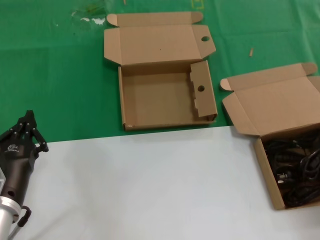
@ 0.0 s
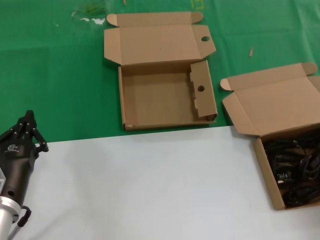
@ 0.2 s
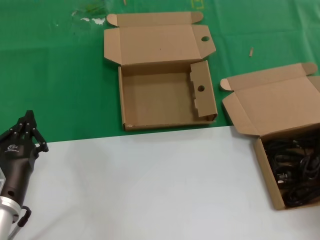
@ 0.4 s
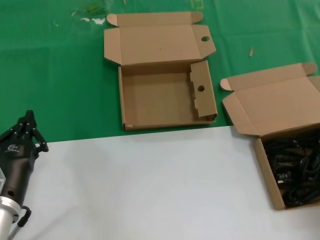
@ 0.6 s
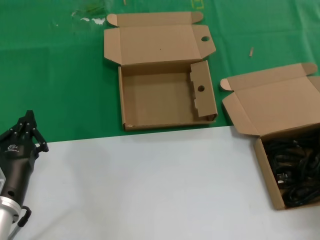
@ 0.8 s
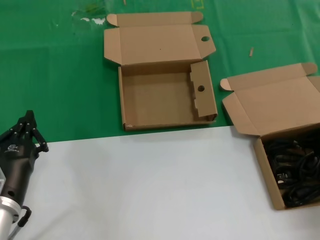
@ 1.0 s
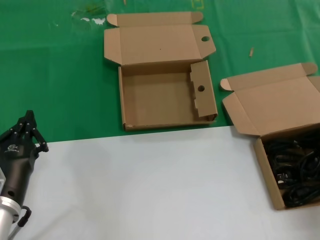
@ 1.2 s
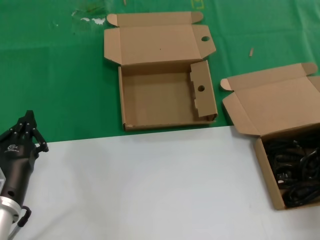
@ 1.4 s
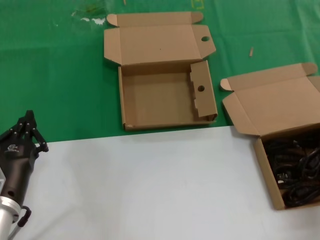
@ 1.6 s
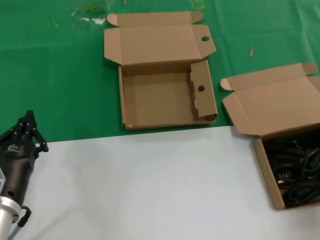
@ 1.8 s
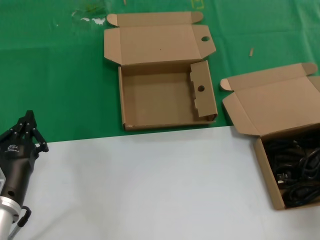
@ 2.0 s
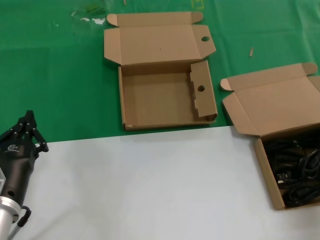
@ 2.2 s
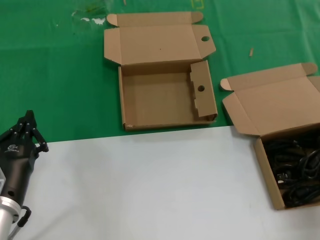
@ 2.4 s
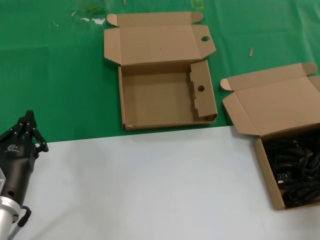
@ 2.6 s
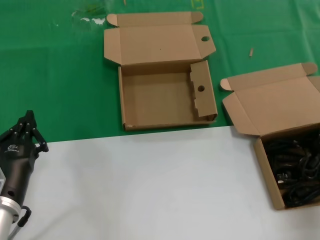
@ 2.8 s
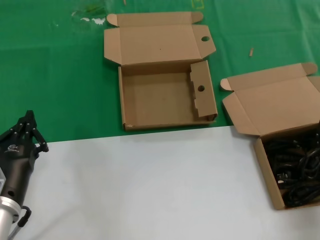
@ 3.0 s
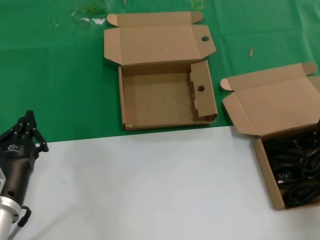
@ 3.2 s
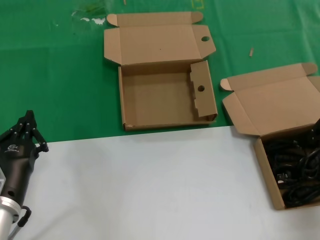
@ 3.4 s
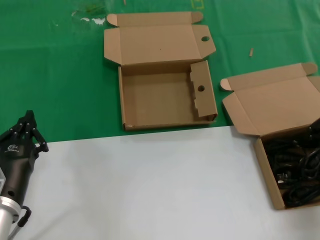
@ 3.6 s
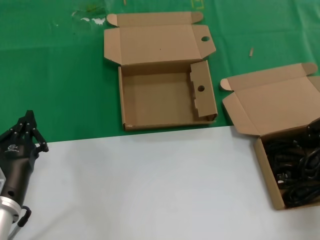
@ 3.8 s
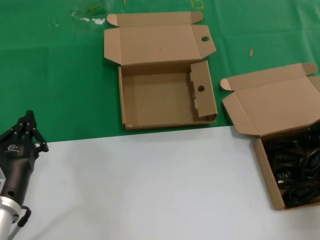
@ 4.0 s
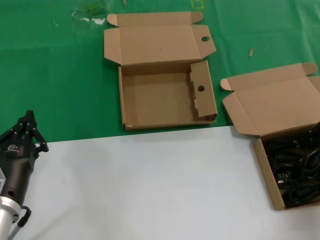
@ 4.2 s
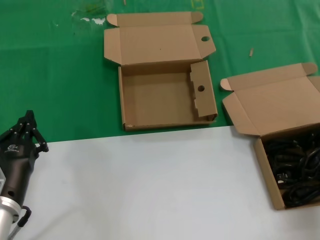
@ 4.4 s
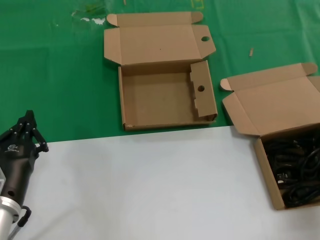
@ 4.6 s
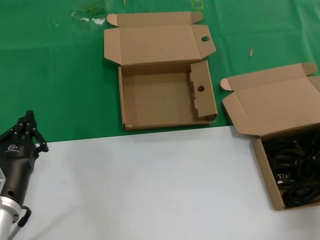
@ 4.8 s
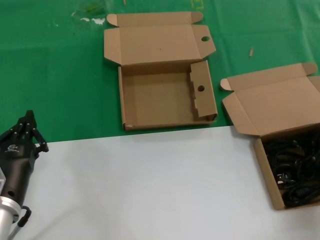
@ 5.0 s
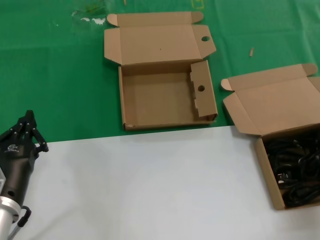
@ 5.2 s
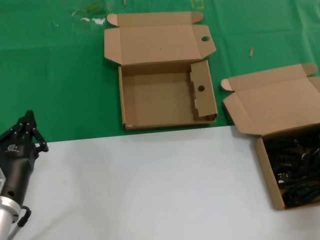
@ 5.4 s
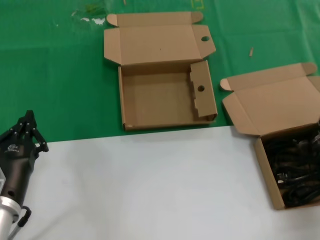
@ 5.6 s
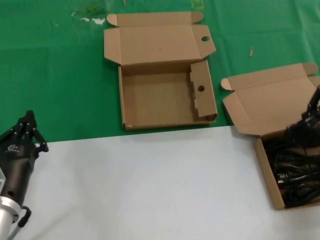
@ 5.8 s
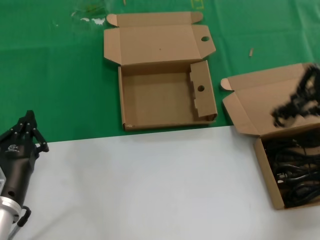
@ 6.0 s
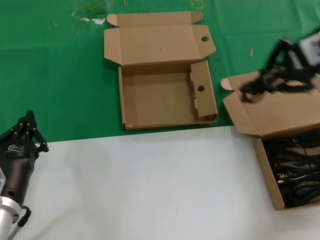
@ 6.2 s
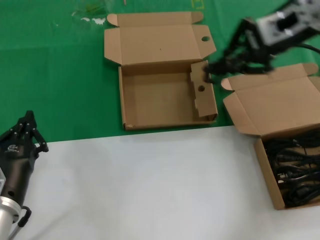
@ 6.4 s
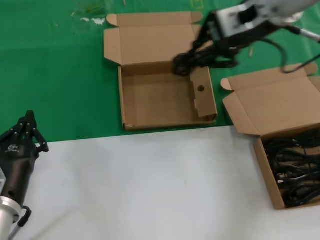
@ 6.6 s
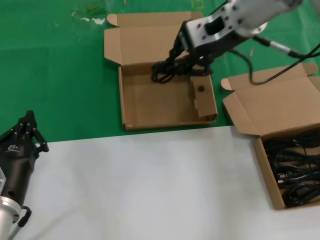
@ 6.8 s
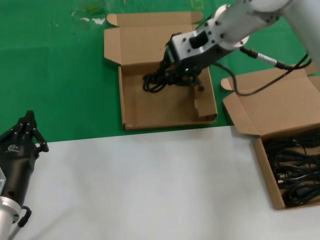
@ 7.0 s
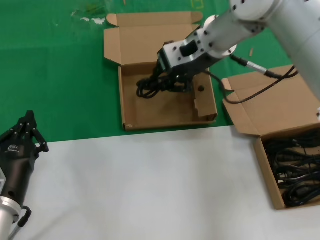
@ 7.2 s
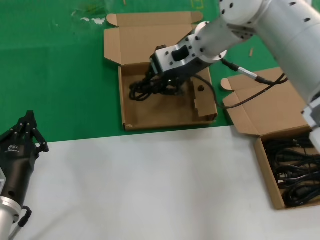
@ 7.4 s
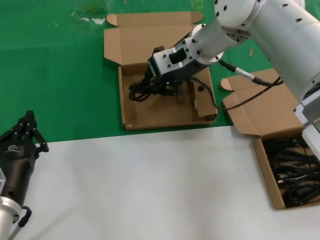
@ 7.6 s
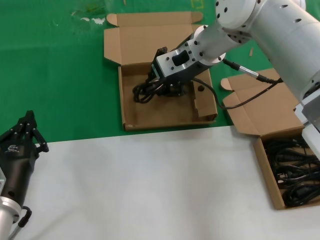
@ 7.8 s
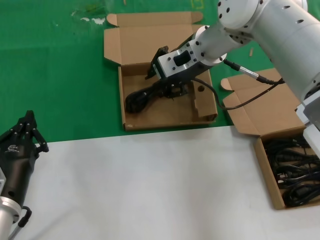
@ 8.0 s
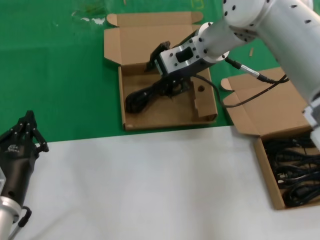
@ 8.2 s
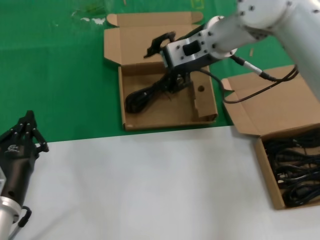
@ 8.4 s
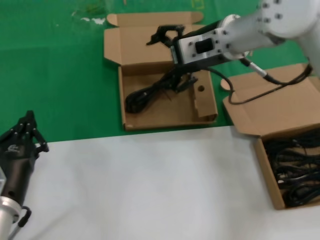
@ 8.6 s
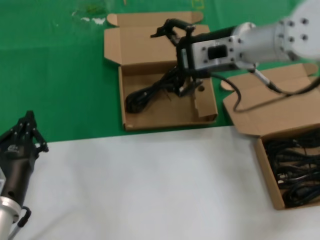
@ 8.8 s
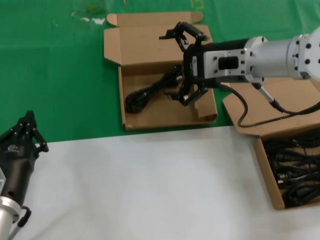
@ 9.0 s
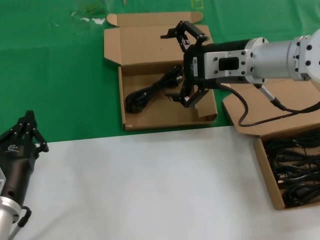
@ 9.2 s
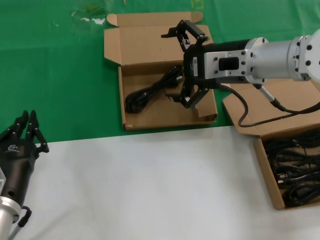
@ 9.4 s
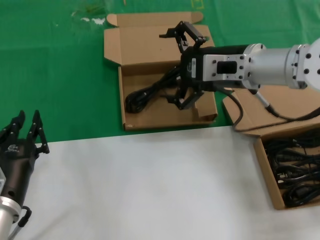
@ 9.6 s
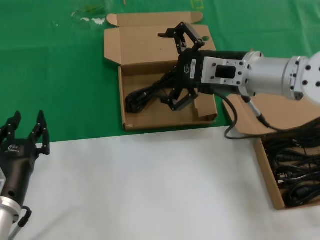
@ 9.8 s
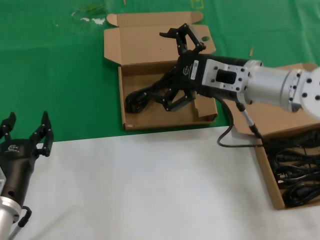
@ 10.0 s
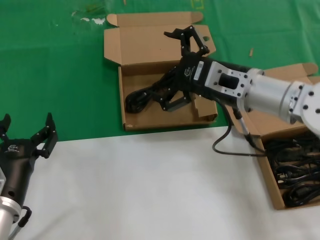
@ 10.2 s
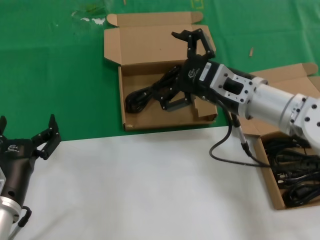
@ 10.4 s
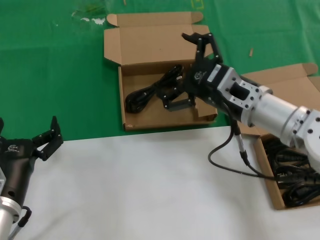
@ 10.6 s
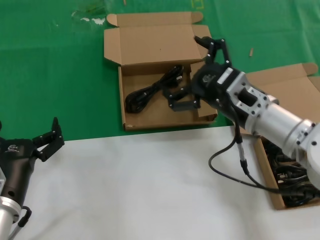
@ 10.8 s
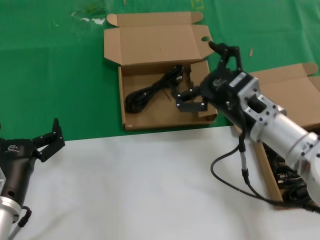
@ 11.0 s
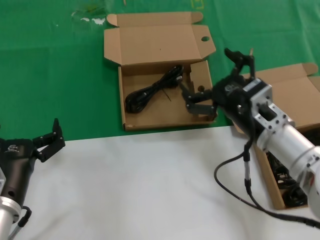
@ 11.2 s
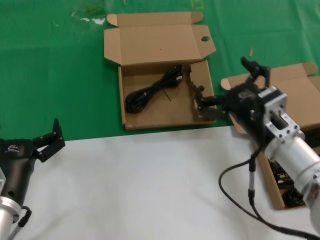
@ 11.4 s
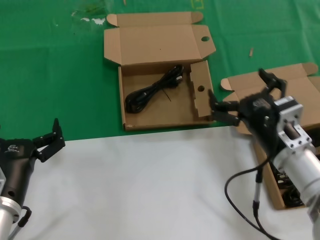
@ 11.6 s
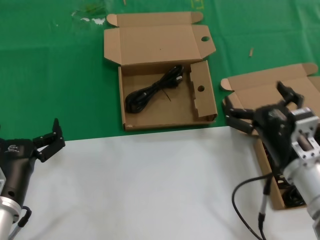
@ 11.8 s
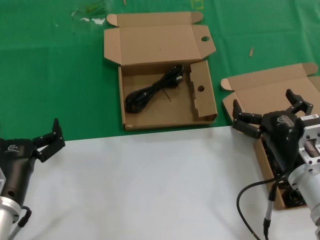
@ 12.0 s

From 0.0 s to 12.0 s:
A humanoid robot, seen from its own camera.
Task of the whole recording: take the parts from the box containing them and put them into an empty box.
Step, from 4.8 s to 8.2 s: Place the data cable in the another box.
From 4.4 s to 6.0 s: The right hand moves upward and to the left, about 10 cm.
From 6.0 s to 7.6 s: The right hand is displaced to the left and forward by approximately 30 cm.
From 7.6 s to 9.0 s: The right hand goes about 10 cm backward and to the right.
From 9.0 s to 10.4 s: The right hand heads downward, covering about 10 cm.
From 10.4 s to 12.0 s: The right hand heads downward, backward and to the right, covering approximately 15 cm.

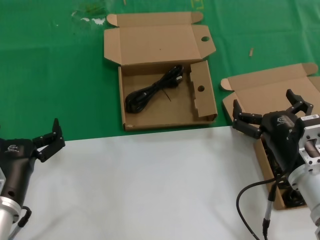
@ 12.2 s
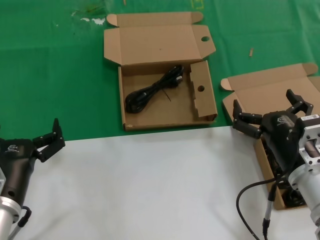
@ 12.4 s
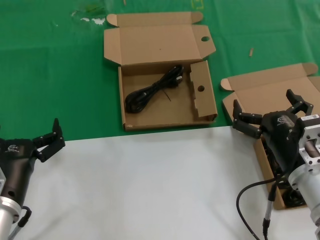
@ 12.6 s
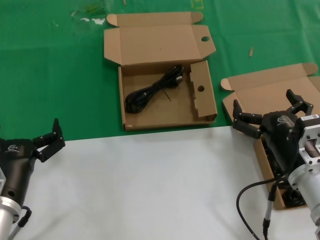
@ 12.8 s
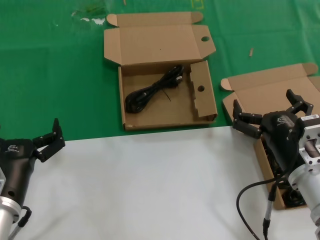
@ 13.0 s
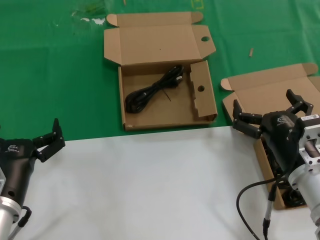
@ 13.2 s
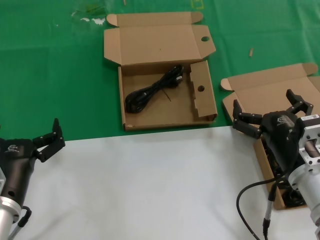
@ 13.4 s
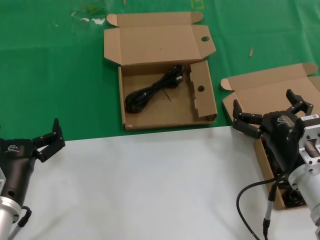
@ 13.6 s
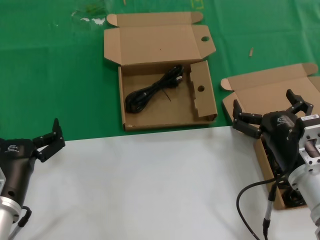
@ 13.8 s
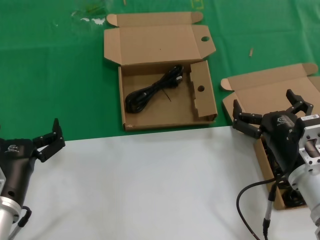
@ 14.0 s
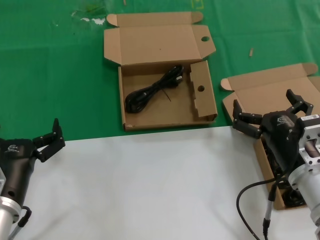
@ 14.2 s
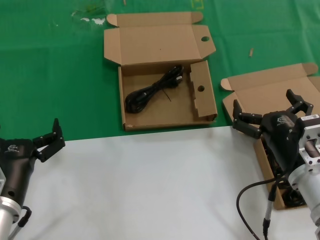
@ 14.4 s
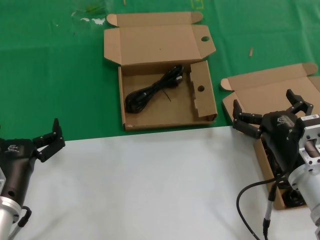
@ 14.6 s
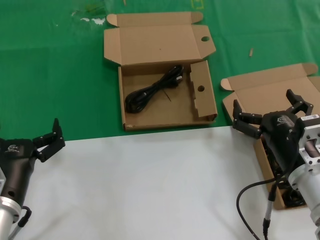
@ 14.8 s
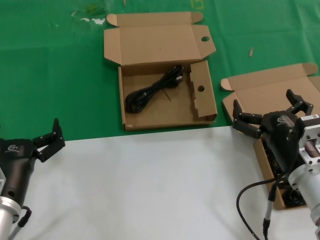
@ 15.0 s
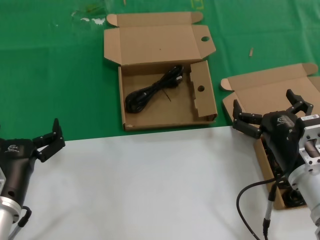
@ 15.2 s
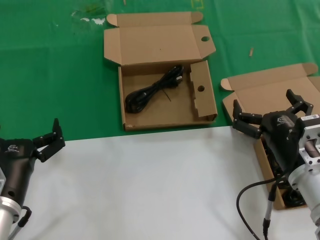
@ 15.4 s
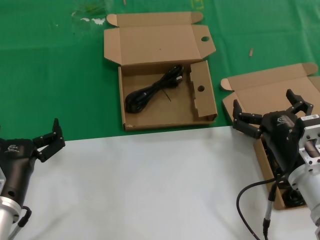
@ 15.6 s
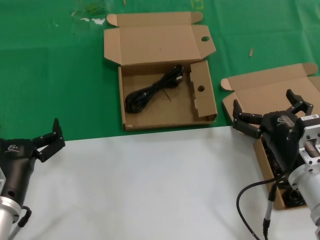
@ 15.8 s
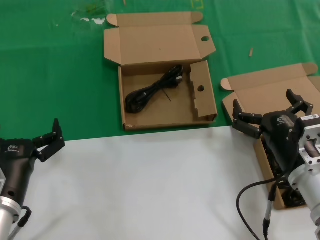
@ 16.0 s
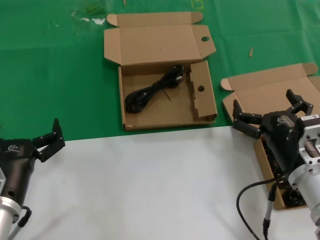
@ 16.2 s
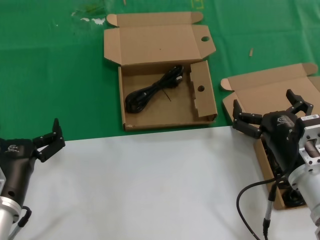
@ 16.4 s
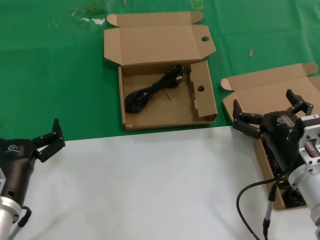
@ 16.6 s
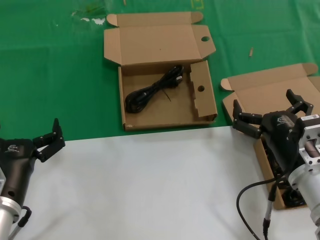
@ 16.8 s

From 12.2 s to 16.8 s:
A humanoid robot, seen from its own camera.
Task of the whole recording: take the parts from the box containing them and put them into an empty box.
From 12.2 s to 16.8 s: Both hands stay about where they are.
